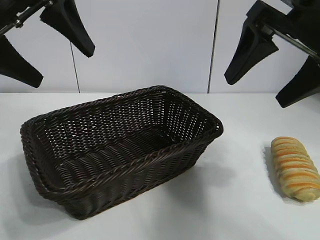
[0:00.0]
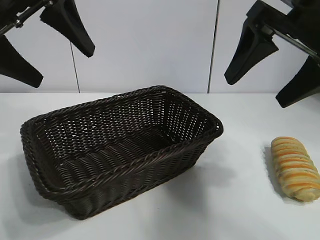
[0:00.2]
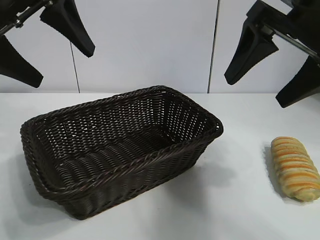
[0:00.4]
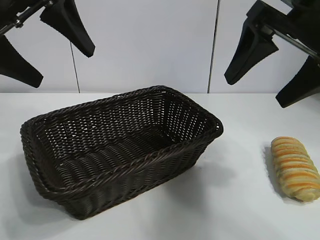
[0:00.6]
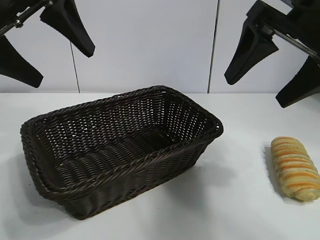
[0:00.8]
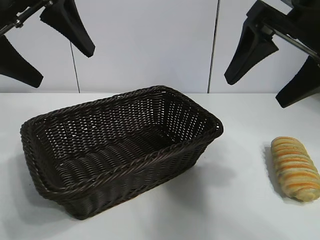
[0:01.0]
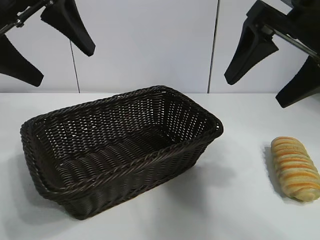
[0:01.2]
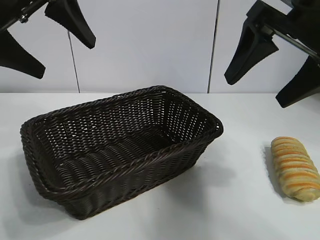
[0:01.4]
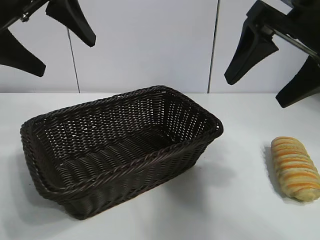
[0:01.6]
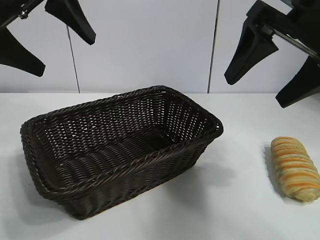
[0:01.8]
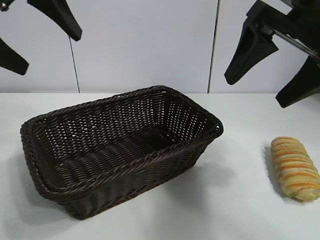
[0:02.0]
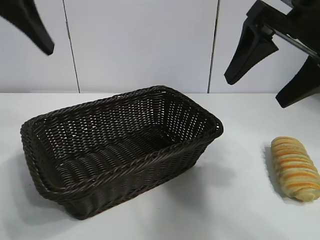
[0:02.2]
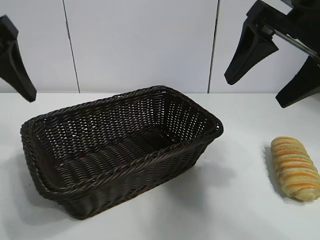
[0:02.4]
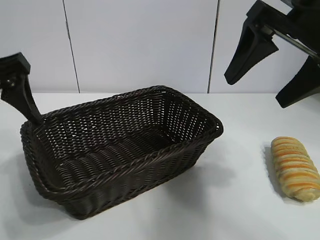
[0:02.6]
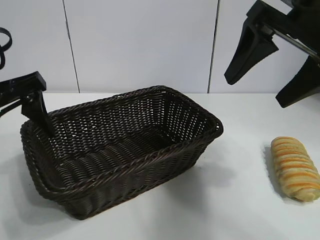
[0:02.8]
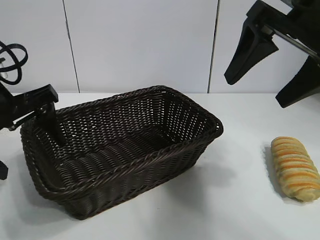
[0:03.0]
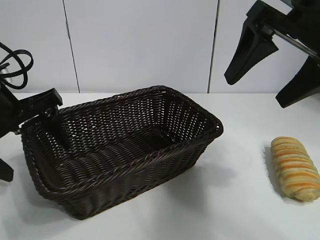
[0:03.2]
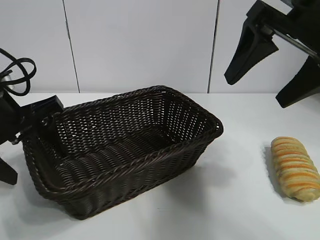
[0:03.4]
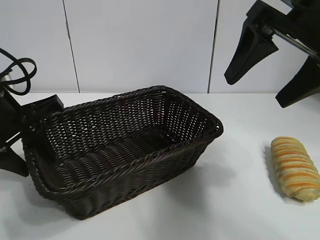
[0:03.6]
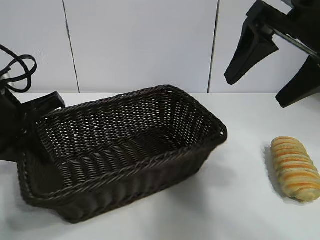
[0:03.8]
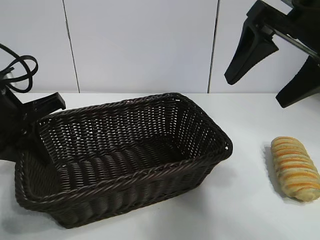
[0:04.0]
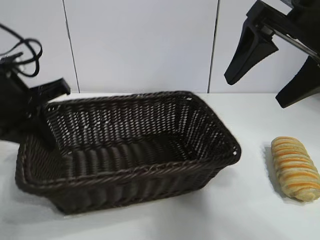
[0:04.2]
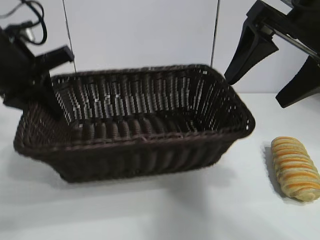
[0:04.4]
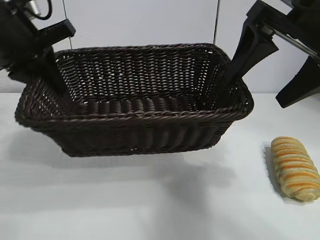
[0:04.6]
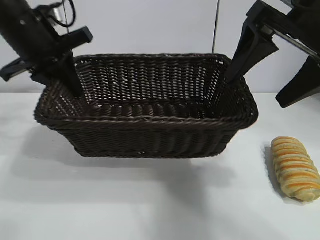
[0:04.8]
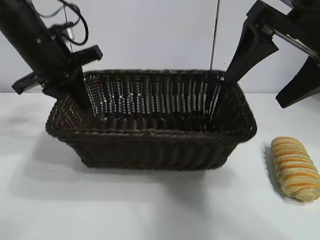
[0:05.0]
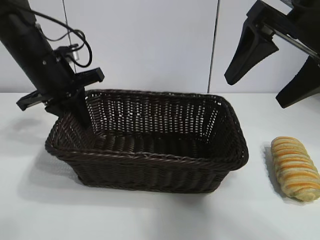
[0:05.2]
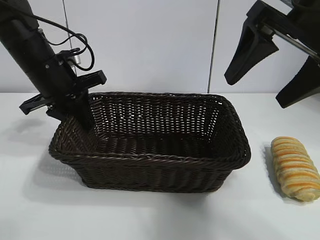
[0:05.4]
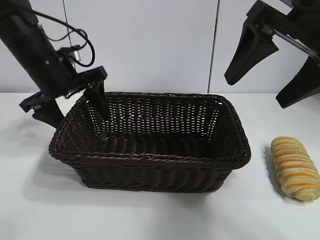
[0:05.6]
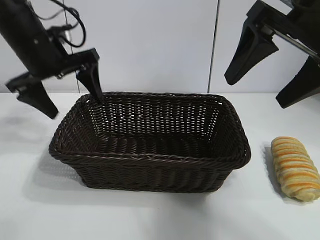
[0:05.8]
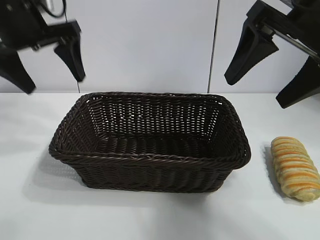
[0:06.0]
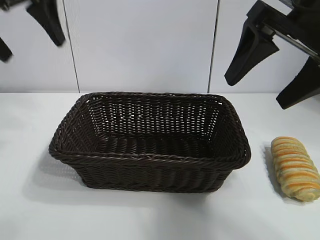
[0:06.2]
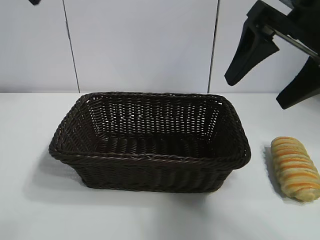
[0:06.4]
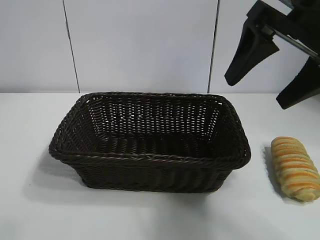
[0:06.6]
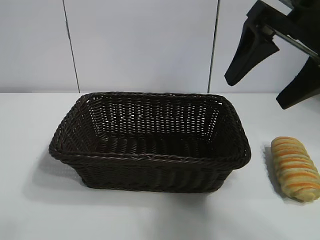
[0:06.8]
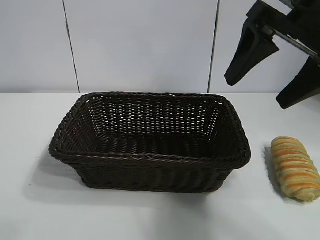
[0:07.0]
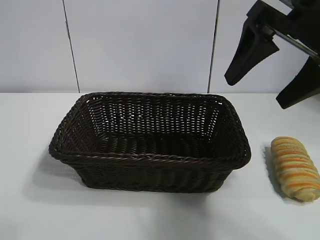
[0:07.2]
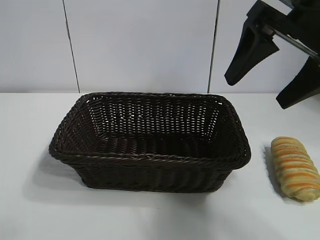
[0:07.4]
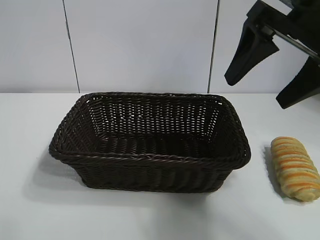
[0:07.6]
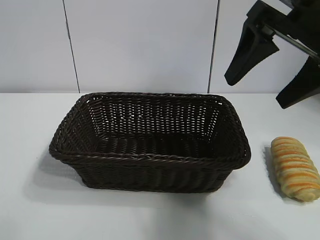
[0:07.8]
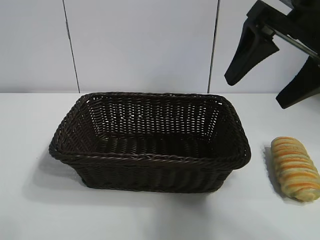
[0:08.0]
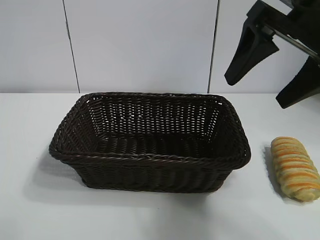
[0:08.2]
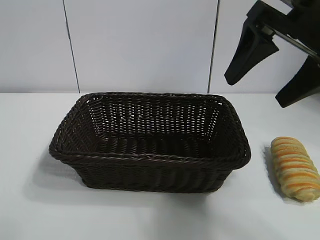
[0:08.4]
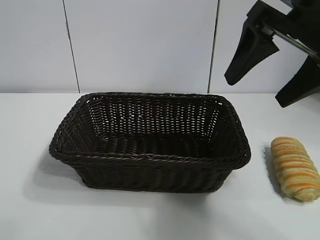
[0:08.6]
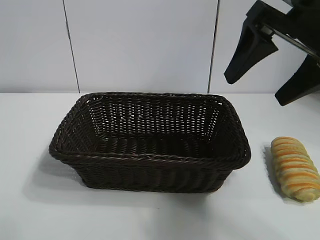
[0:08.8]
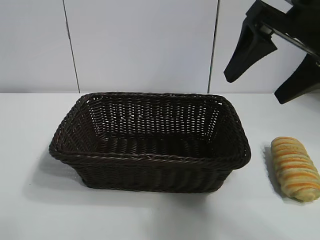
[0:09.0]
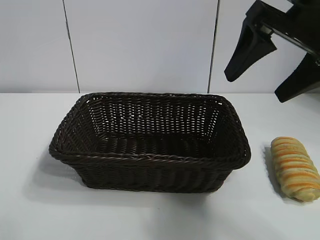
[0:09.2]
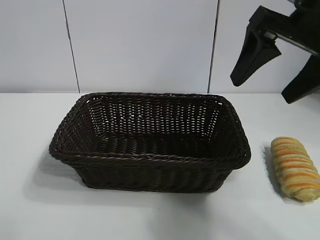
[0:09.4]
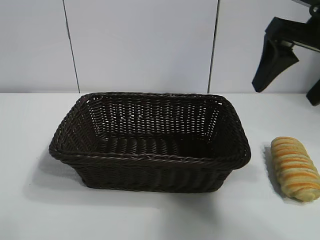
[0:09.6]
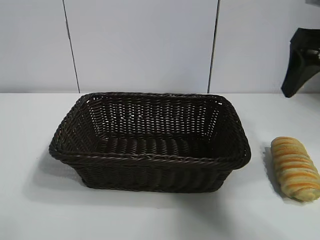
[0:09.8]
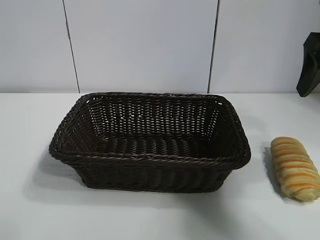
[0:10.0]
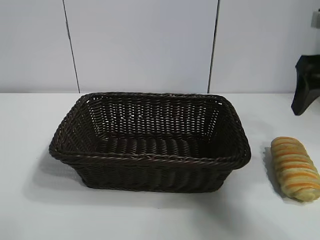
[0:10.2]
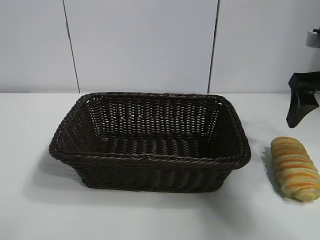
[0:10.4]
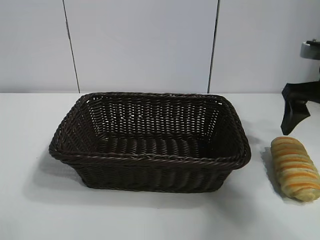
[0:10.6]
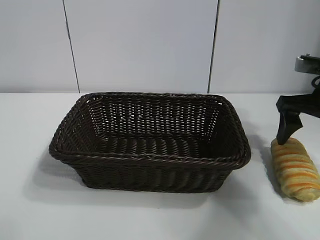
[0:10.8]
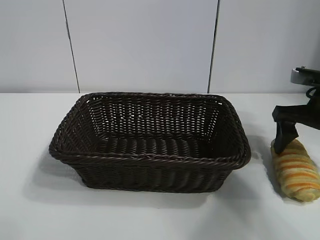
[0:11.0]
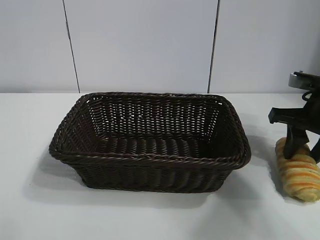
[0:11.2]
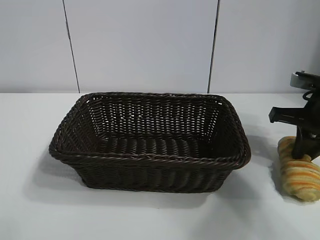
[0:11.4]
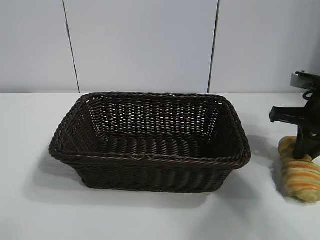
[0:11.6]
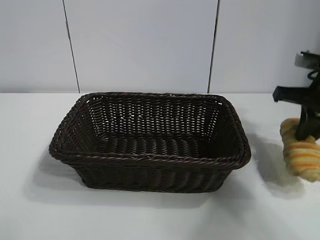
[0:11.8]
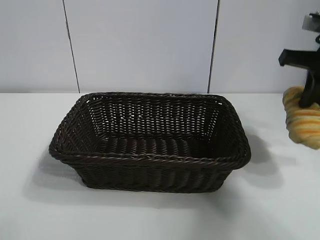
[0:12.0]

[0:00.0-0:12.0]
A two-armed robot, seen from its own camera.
Task of the whole recording: pick up the long bread and put it into the basket.
Step, 0:01.2 to 0:04.0: Grasp the basket with the left gripper.
Step, 0:04.2 to 0:05.6: Place the basket in the center of the table with the left gripper.
Step, 0:05.8 to 0:11.4: Grasp the long bread with right gripper.

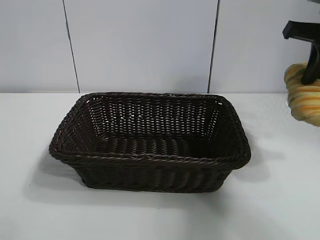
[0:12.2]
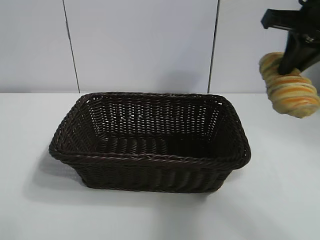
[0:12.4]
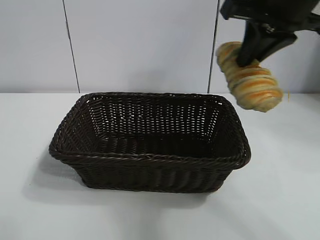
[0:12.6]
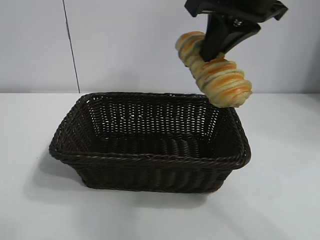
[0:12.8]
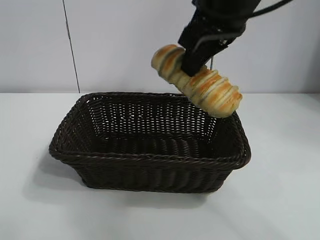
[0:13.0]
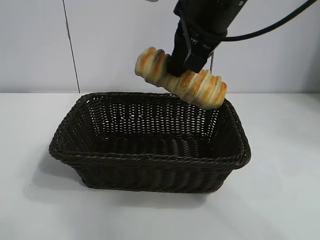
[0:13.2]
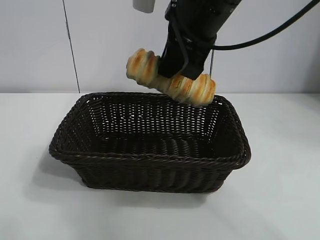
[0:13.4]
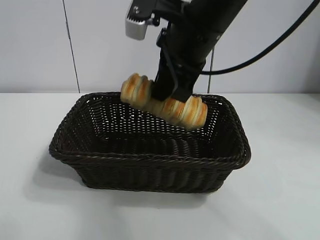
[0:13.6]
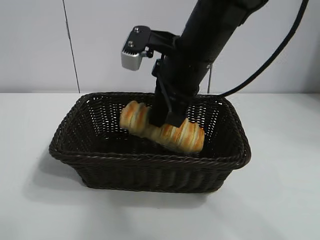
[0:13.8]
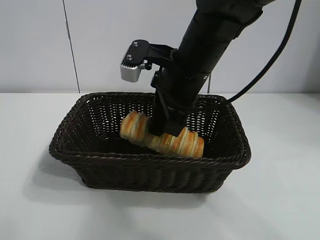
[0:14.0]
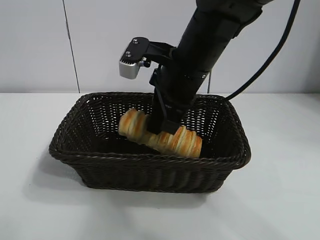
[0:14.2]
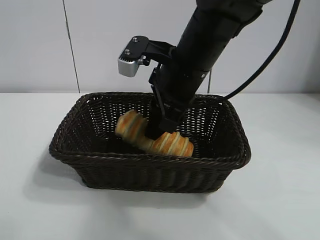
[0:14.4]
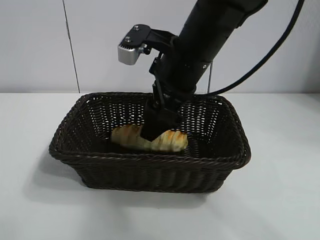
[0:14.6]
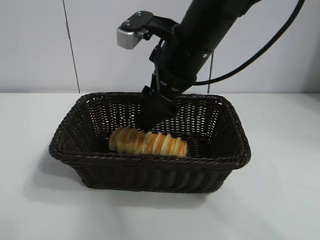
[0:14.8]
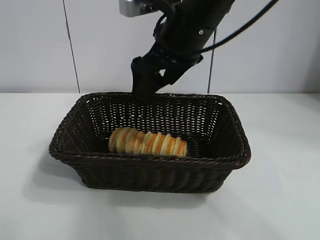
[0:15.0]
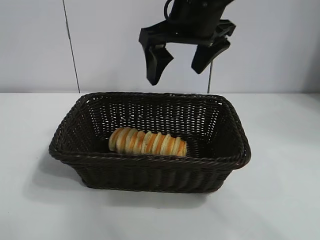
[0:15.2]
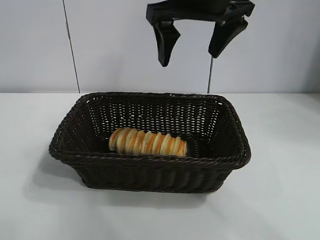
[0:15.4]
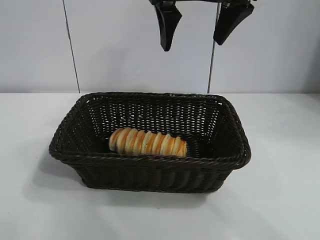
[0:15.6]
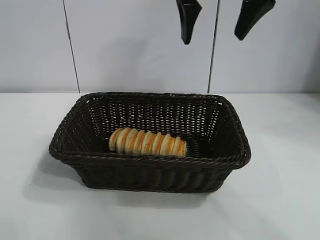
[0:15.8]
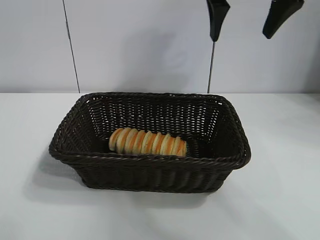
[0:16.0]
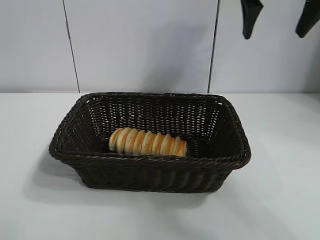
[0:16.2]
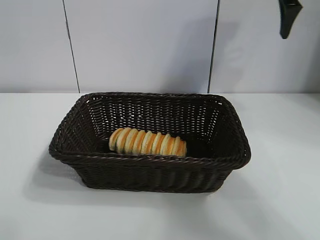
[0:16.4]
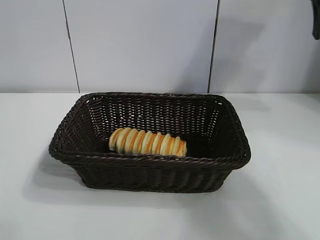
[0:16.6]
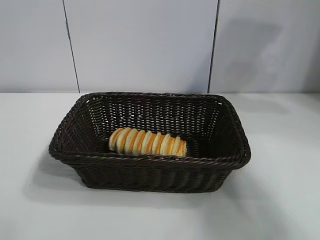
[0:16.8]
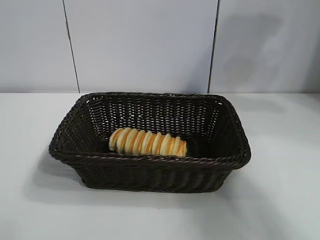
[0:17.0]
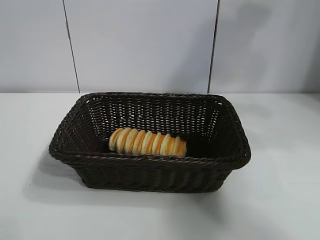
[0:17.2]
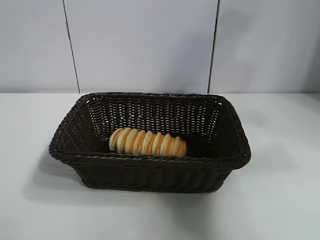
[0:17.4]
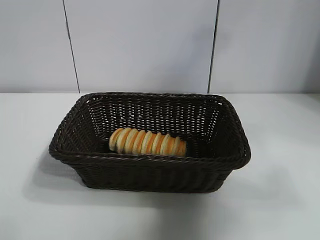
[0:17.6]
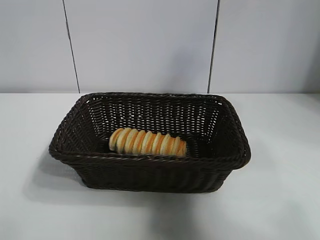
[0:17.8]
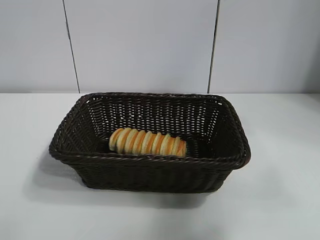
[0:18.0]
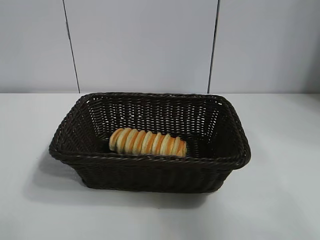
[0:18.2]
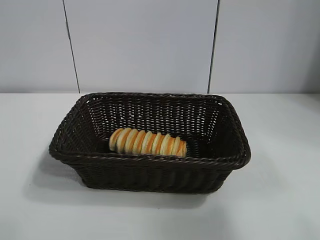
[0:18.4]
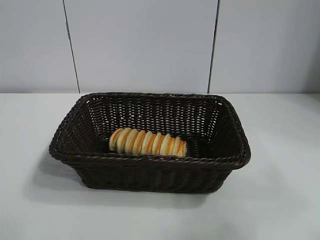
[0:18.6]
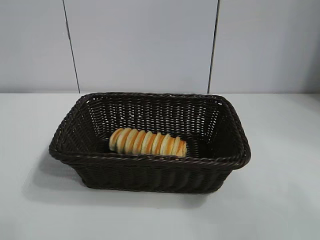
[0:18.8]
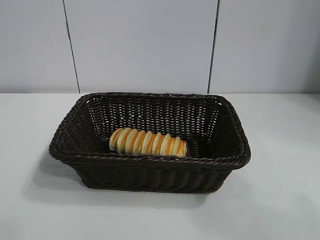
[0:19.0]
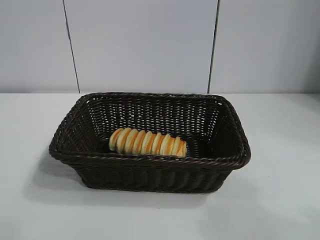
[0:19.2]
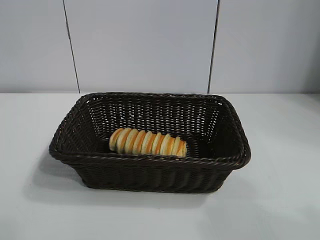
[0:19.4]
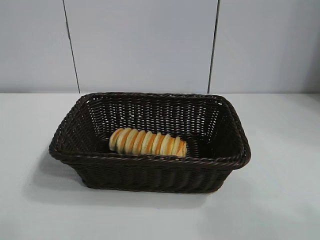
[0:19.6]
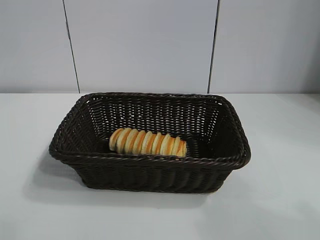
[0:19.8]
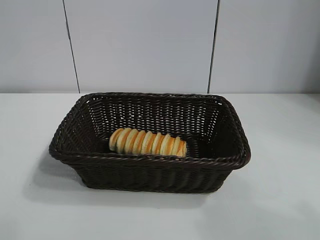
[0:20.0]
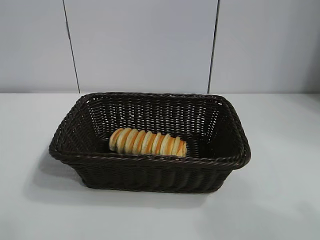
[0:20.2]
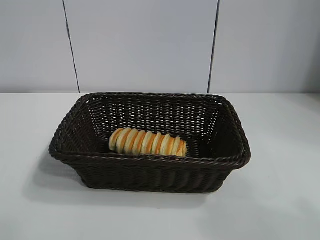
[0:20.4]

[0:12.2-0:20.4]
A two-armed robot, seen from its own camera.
Task of the whole recording: pick up the long bread and put it into the basket.
Step, 0:12.2 to 0:14.8: Place the long bread in the basket with right gripper.
